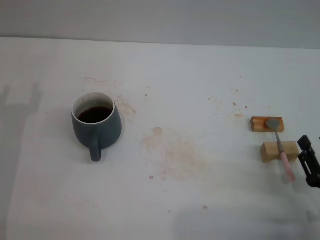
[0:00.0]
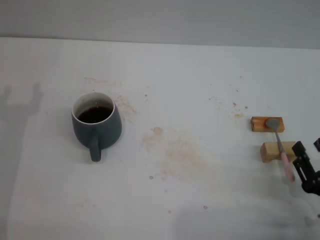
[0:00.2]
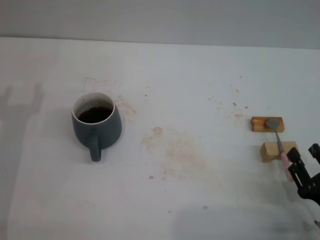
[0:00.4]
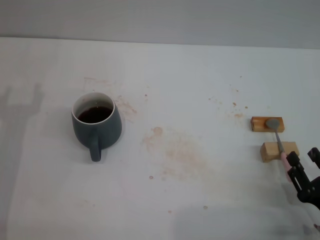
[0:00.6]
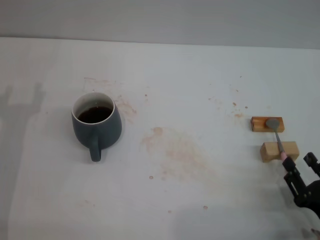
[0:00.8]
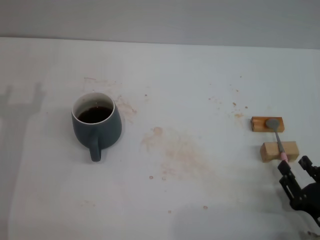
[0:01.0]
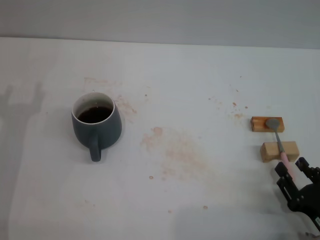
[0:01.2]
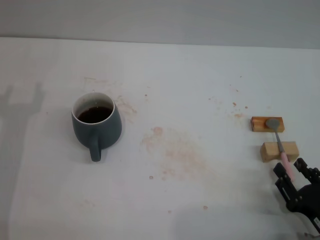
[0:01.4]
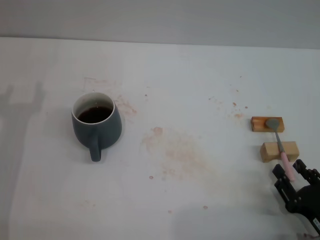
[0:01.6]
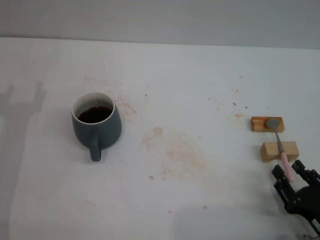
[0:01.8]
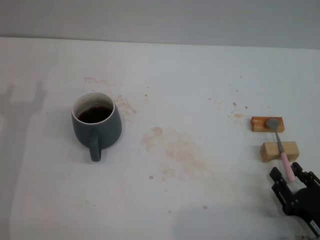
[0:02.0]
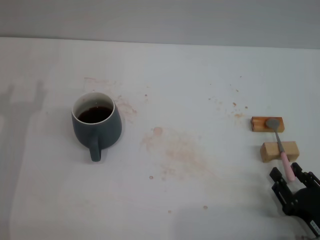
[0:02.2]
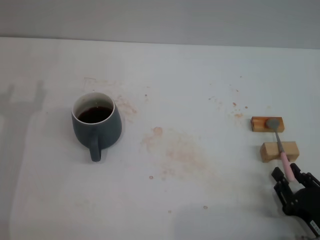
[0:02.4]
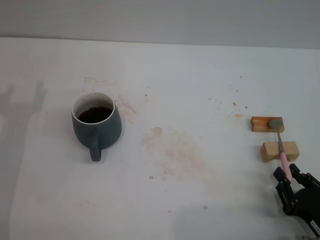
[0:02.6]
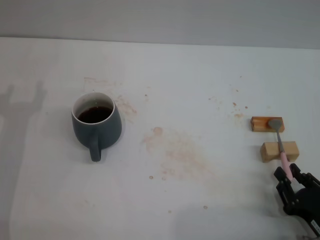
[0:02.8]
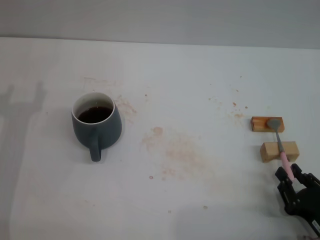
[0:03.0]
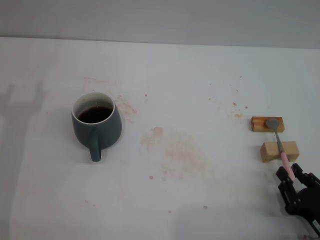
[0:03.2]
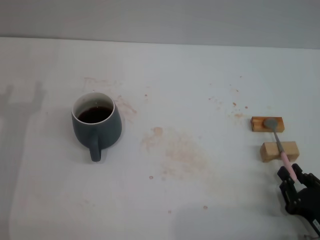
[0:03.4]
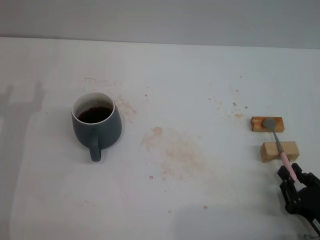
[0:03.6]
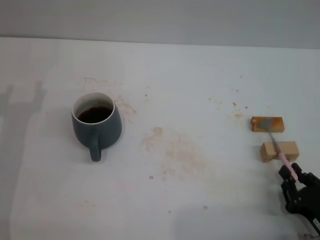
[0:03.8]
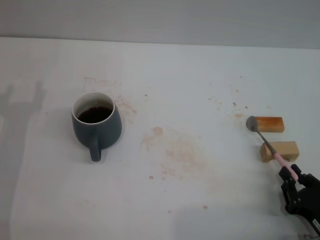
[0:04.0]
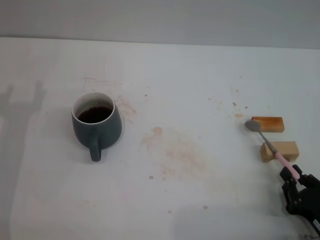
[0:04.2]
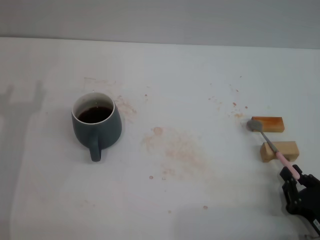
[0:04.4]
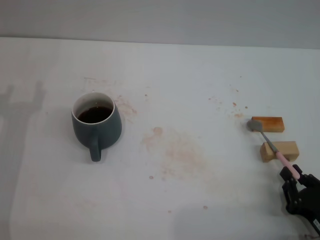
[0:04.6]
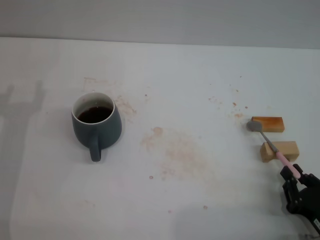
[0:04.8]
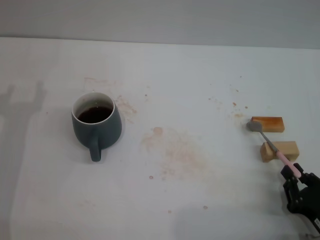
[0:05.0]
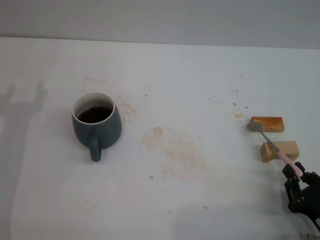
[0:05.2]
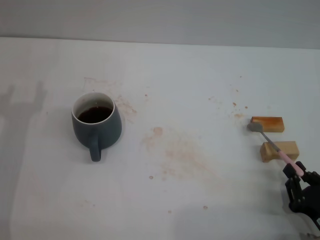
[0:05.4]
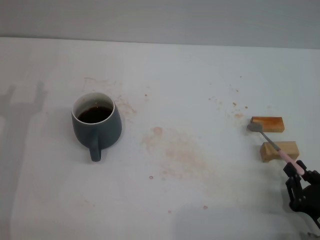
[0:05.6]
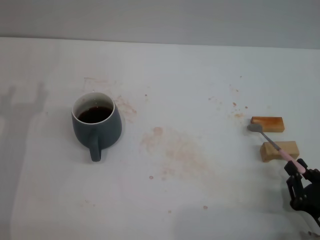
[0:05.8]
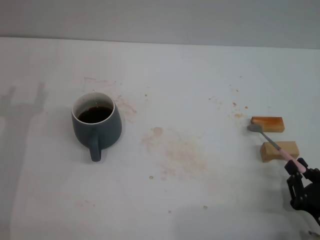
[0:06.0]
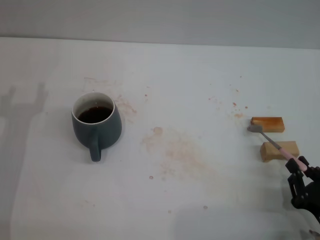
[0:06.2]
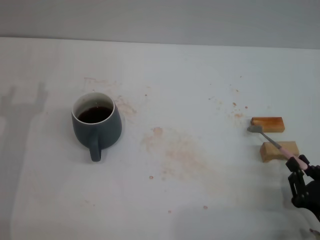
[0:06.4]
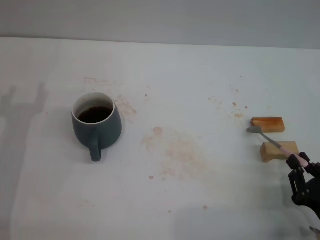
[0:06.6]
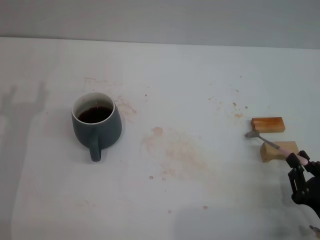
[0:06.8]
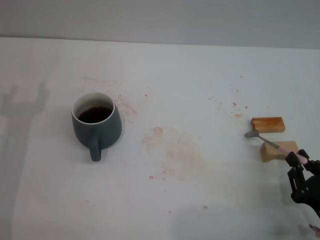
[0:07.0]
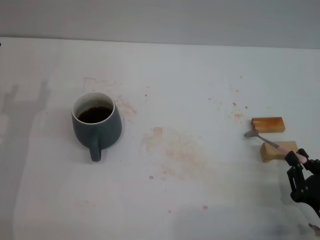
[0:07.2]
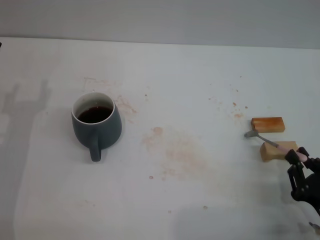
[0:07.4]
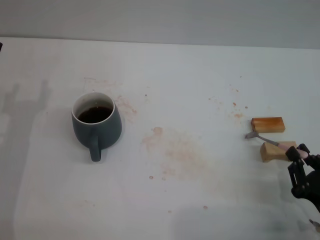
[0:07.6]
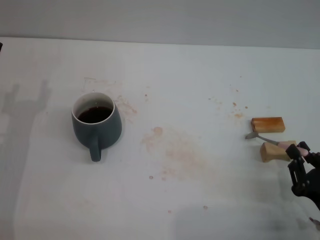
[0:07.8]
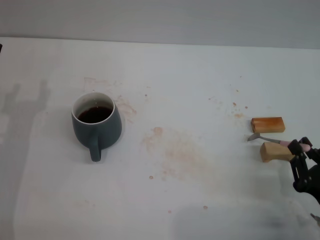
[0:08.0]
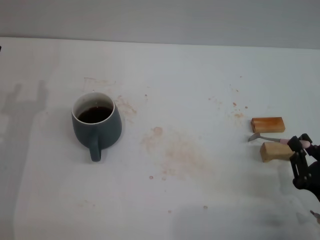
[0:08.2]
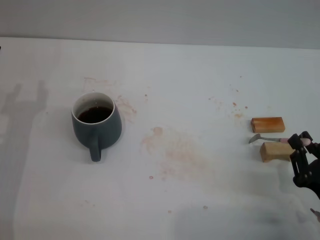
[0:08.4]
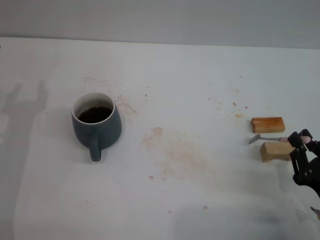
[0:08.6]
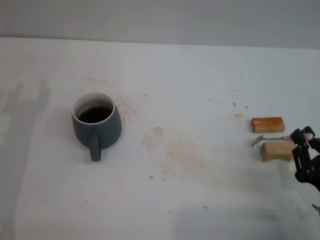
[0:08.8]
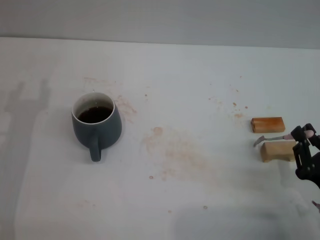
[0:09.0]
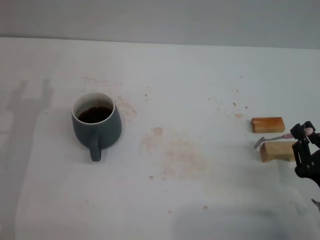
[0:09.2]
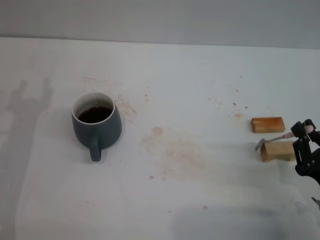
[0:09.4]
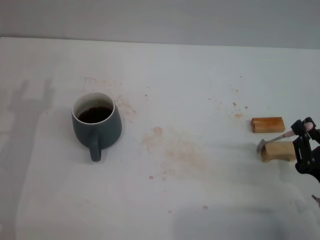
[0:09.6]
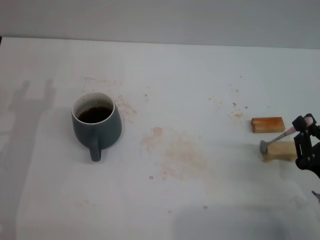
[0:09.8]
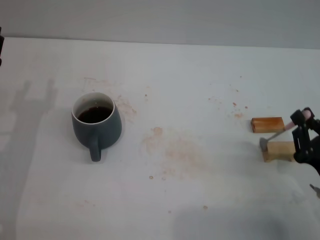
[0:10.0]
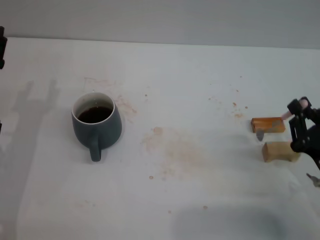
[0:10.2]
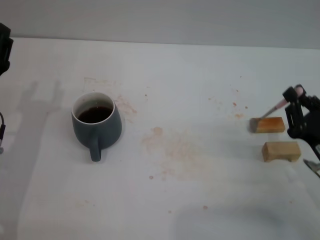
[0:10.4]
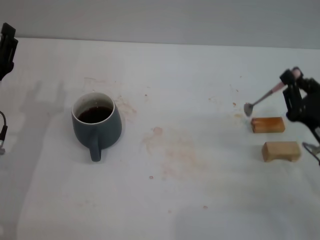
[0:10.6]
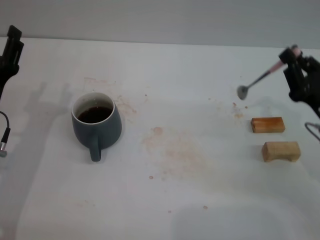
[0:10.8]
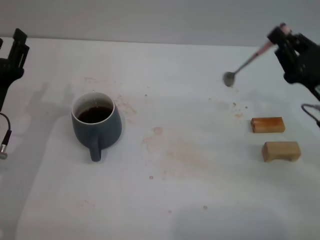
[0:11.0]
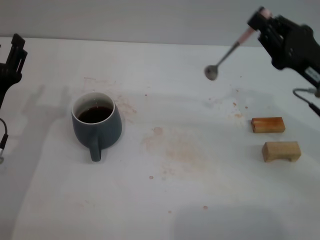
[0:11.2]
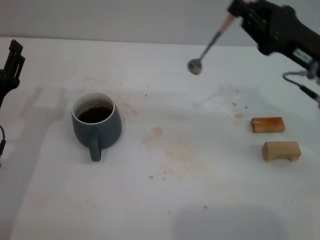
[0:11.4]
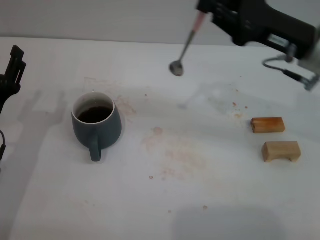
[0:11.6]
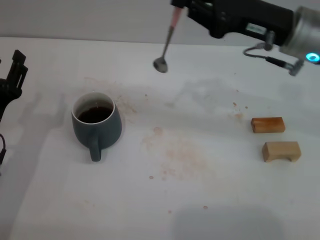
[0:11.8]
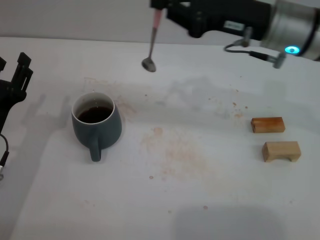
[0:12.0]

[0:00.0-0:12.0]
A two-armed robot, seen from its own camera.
Task of the whole recording: Move the grey cup to the center, lift the pink spoon, stir it three times in the cup, and put the spoon into the cup.
Step, 0:00.0 to 0:10.6: Pick up the spoon with the right gripper.
0:00.0 to 0:01.6: The grippers make only small movements.
0:01.6 to 0:03.0: The right gripper closes.
0:03.0 to 0:06.0: Both grippers stay about where they are.
0:06.0 to 0:07.6: The grippers stay close to where they were, moving slightly.
0:09.0 to 0:10.4: The right gripper is displaced forward by roughly 5 cm.
0:10.4 to 0:12.0: The right gripper heads forward, upward and to the left, covering approximately 25 cm.

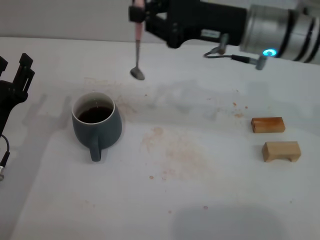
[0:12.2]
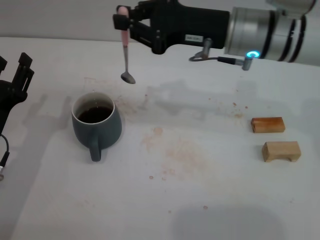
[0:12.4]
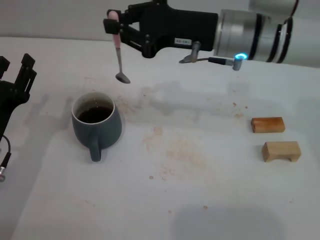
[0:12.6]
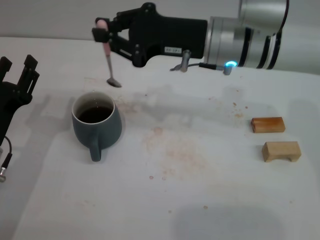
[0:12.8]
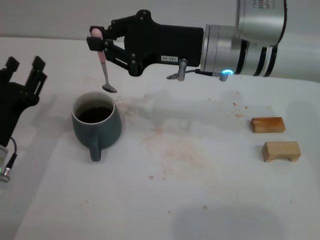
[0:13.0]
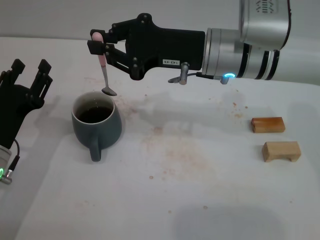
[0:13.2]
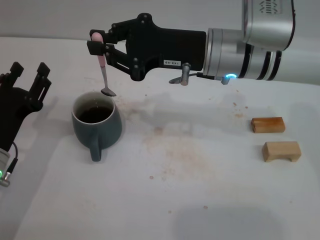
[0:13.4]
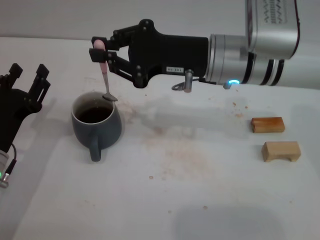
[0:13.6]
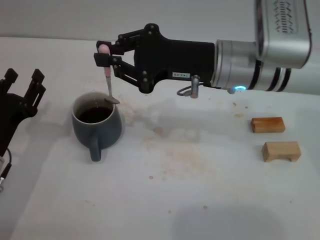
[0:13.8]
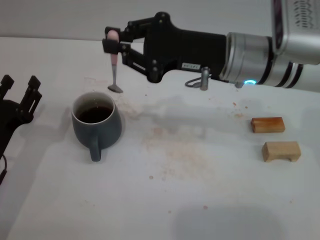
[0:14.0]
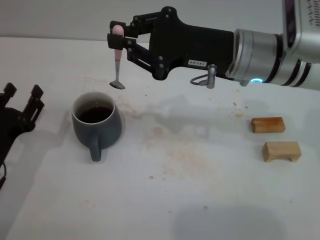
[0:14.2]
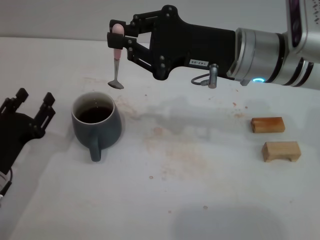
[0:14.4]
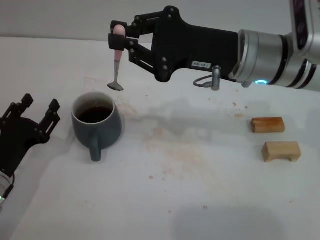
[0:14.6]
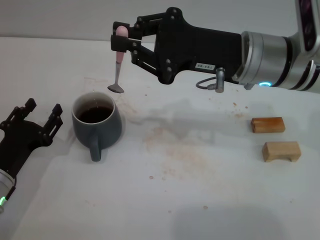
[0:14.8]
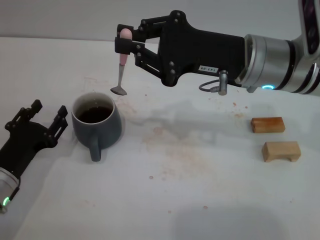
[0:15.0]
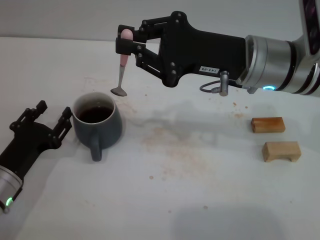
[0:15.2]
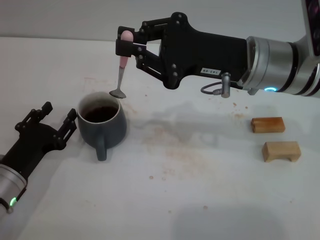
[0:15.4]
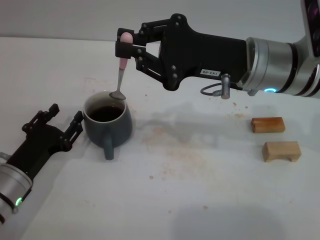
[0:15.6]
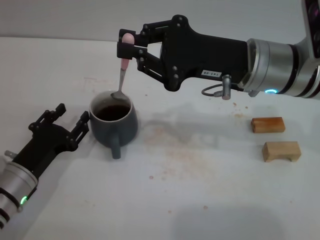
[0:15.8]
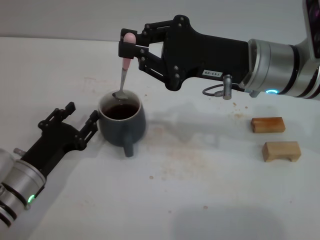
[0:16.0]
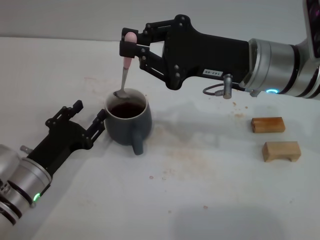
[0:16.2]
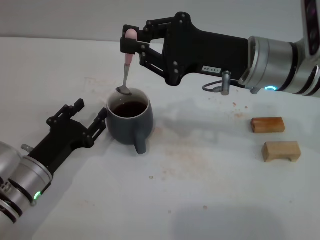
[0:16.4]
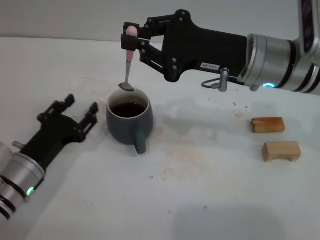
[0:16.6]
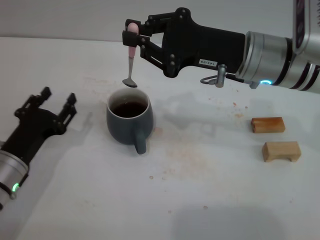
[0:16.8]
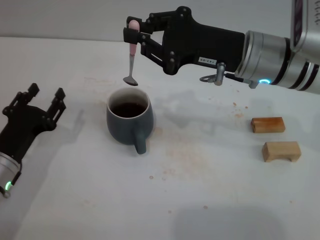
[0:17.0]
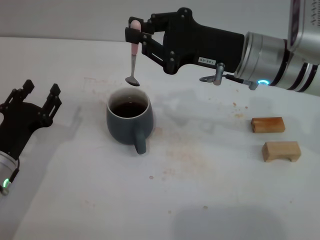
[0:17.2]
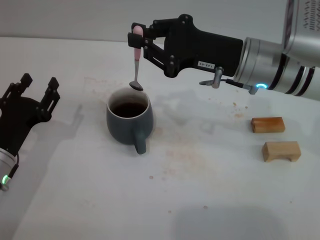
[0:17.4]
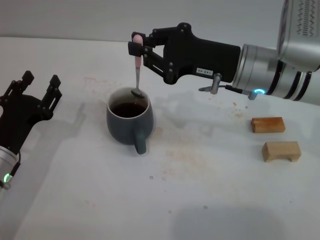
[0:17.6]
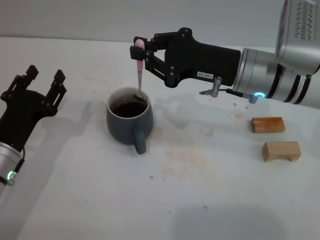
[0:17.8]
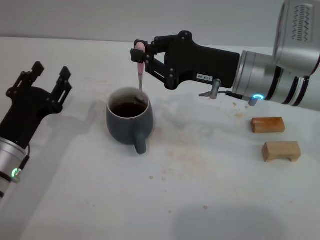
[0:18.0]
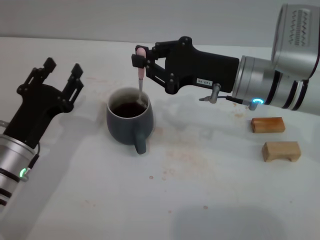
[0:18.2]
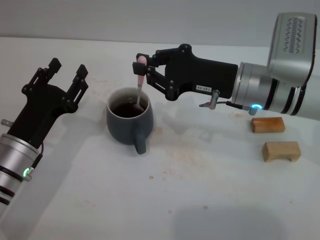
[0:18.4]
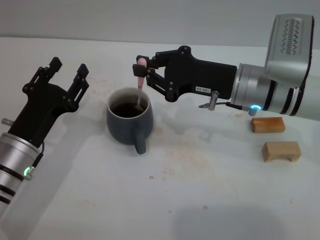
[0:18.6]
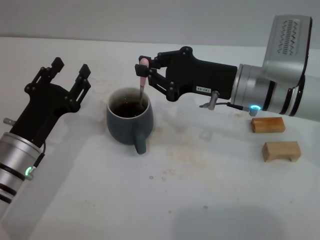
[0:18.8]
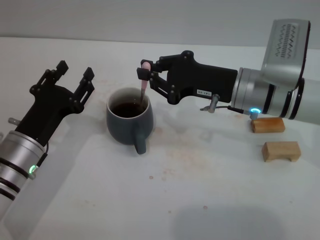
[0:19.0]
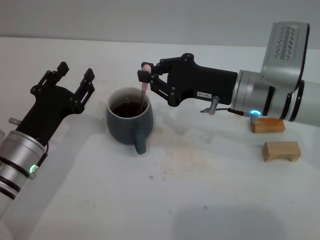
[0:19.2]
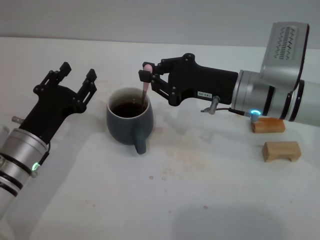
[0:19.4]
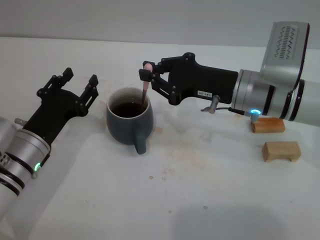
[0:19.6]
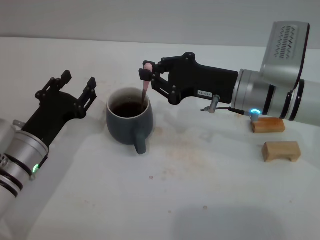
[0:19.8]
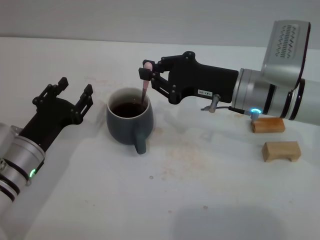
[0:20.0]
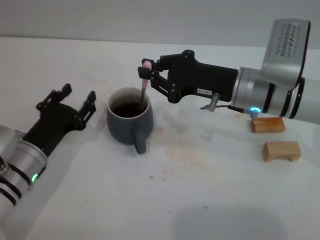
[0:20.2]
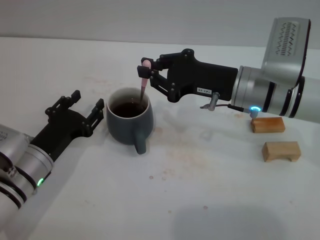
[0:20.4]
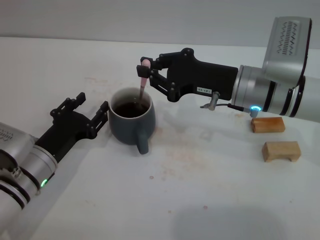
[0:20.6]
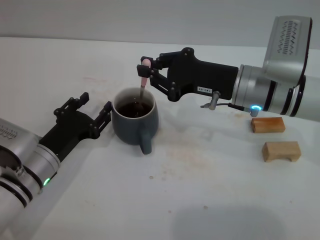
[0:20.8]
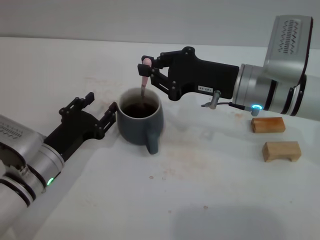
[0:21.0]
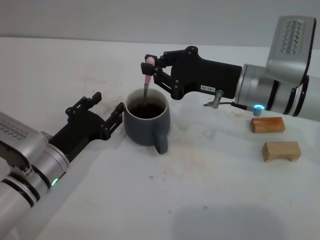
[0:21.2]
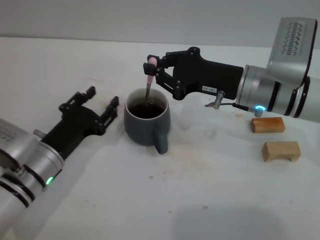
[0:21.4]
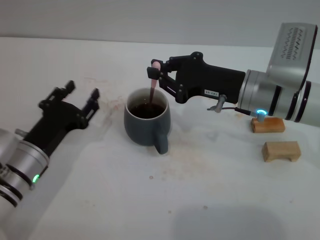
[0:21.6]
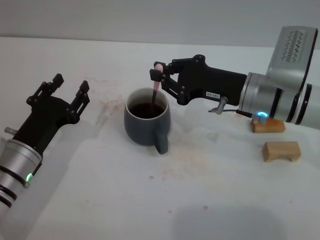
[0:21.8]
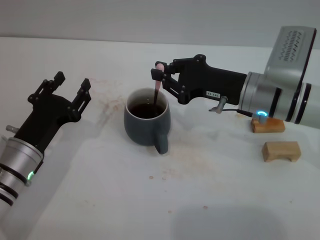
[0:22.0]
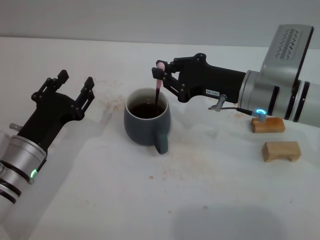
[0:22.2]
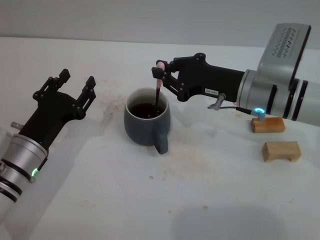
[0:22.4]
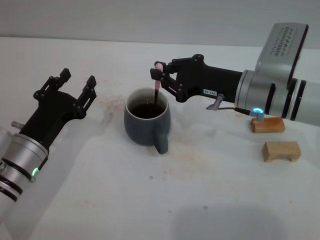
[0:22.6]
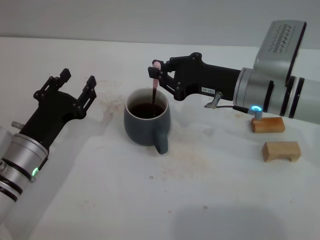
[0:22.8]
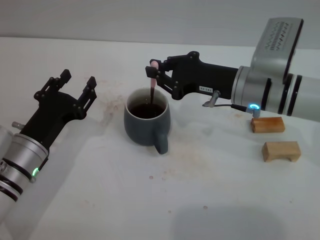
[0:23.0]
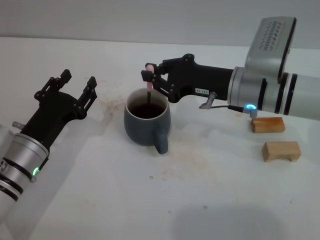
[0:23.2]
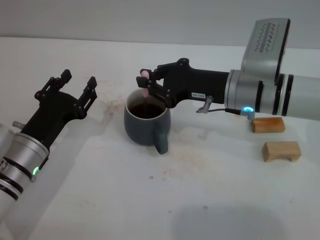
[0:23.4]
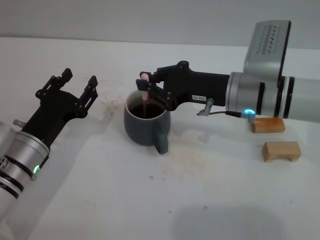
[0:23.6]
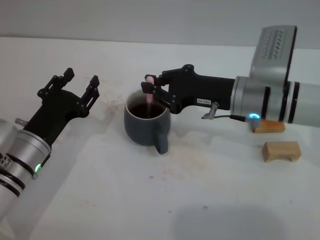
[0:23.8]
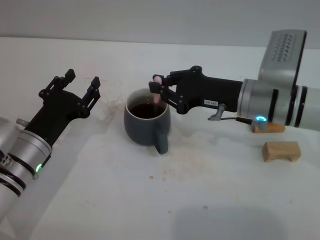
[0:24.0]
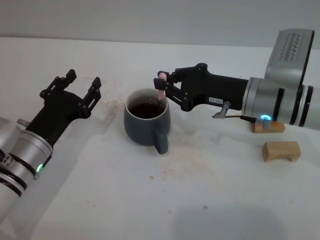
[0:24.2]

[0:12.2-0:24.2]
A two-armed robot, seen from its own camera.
Task of the whole recording: Move the grey cup to the center, lift the pink spoon, stir it three times in the cup, and put the spoon into the cup.
Step, 0:12.2 to 0:16.8: Move the cup with coffee to the center of view with the left gripper.
0:12.2 to 0:13.8: The right gripper shifts by about 5 cm.
0:15.2 to 0:16.6: There are only small adjustments of the grippers.
0:18.2 to 0:24.2: The grippers stay close to where they were, moving slightly.
